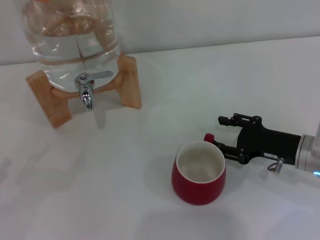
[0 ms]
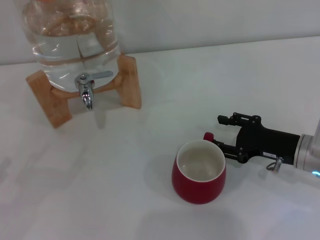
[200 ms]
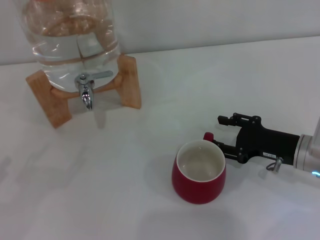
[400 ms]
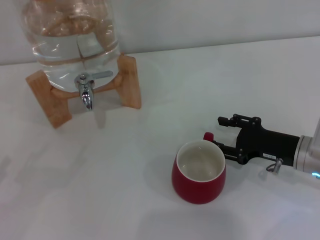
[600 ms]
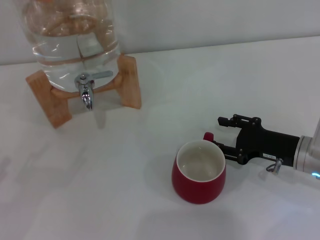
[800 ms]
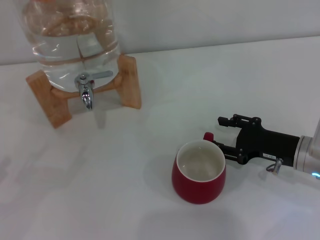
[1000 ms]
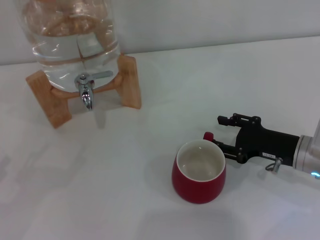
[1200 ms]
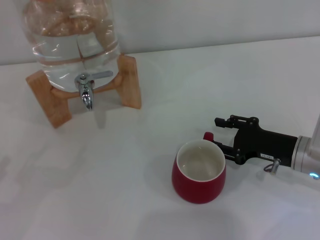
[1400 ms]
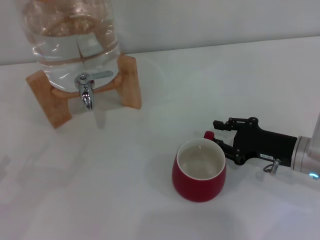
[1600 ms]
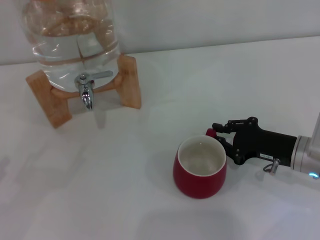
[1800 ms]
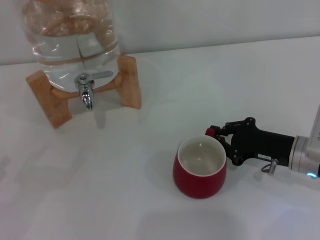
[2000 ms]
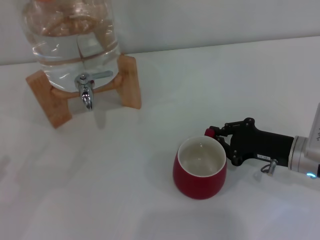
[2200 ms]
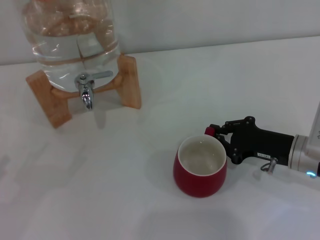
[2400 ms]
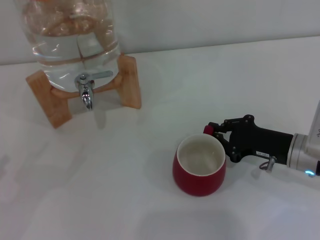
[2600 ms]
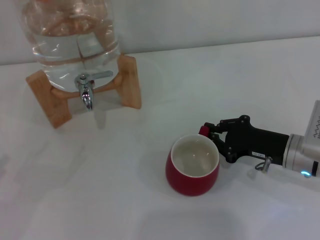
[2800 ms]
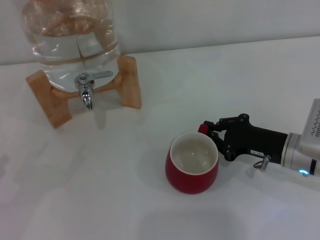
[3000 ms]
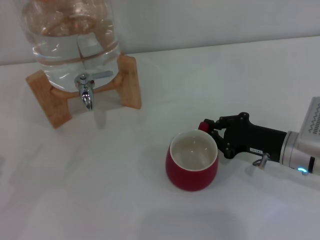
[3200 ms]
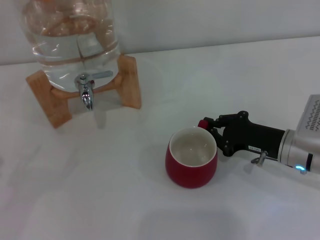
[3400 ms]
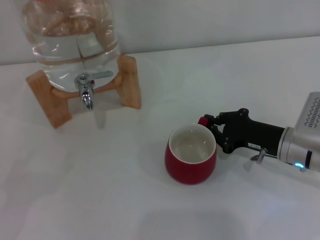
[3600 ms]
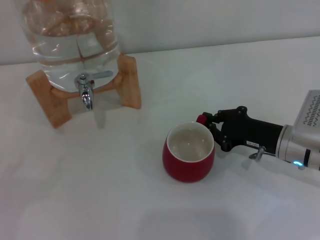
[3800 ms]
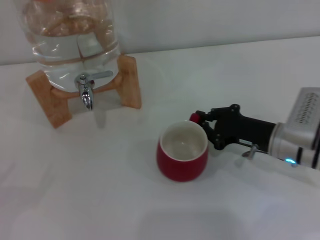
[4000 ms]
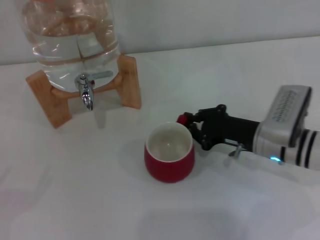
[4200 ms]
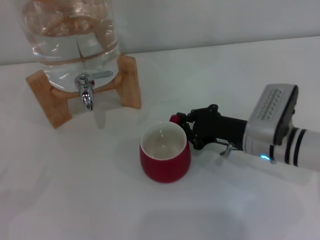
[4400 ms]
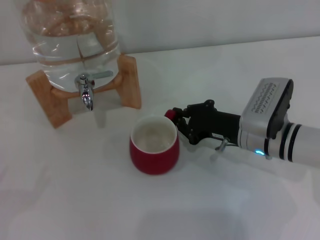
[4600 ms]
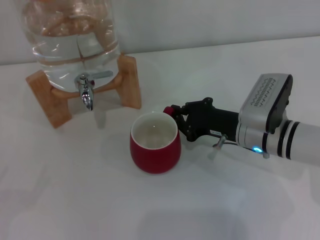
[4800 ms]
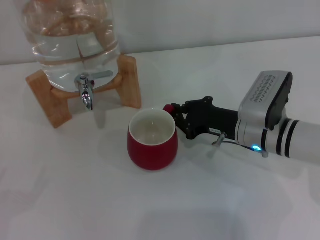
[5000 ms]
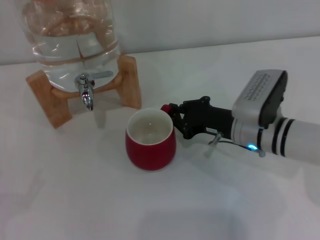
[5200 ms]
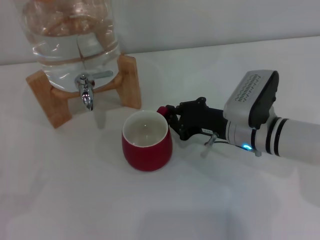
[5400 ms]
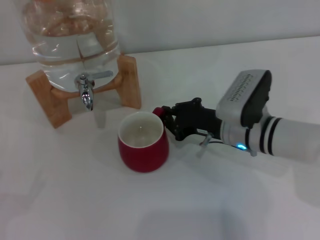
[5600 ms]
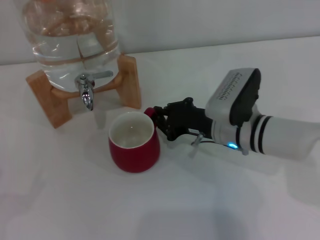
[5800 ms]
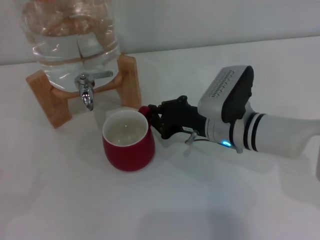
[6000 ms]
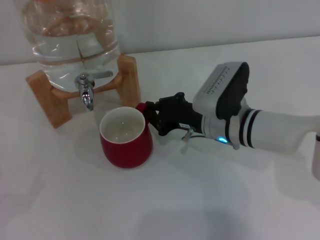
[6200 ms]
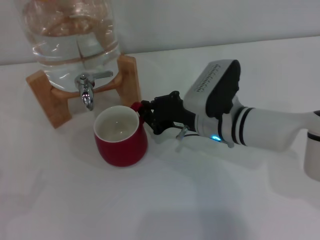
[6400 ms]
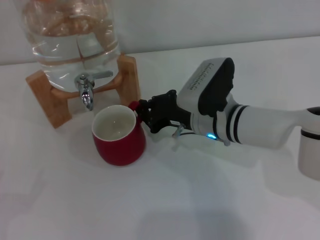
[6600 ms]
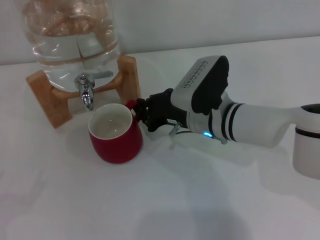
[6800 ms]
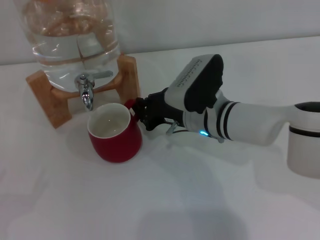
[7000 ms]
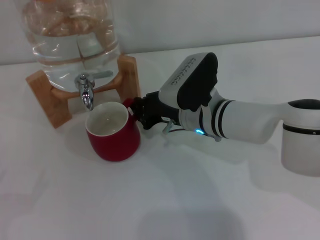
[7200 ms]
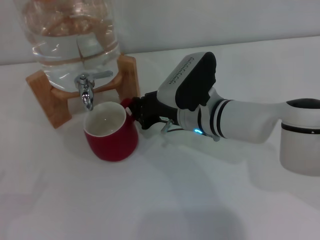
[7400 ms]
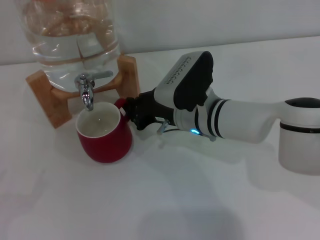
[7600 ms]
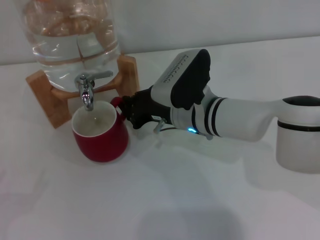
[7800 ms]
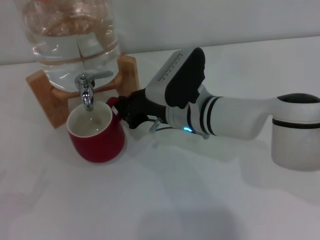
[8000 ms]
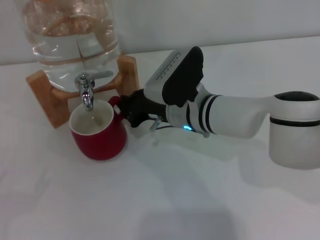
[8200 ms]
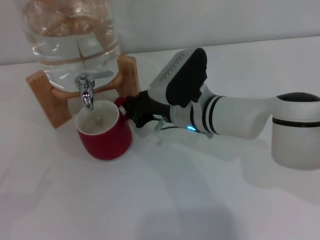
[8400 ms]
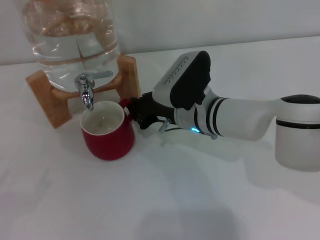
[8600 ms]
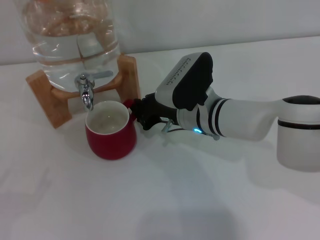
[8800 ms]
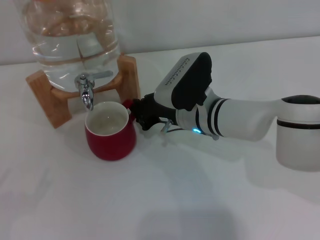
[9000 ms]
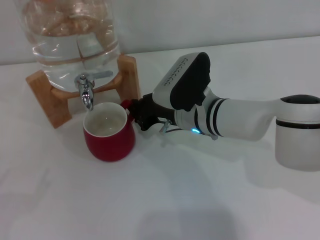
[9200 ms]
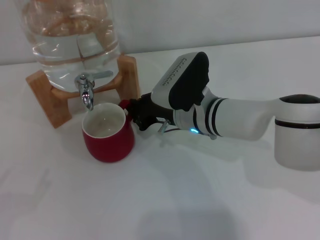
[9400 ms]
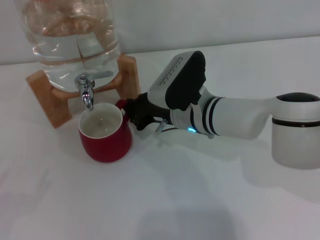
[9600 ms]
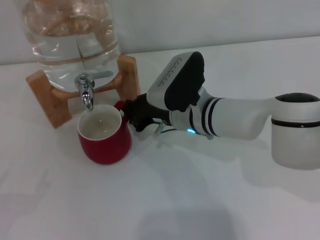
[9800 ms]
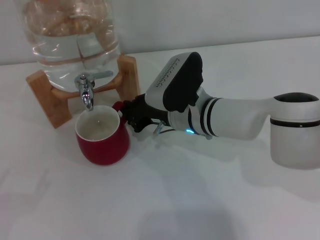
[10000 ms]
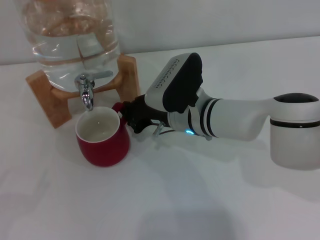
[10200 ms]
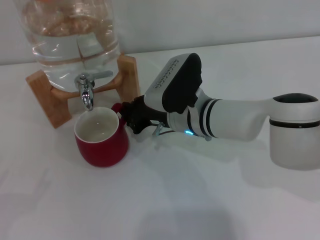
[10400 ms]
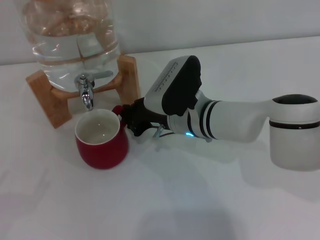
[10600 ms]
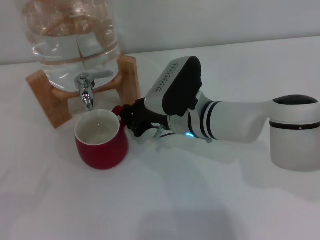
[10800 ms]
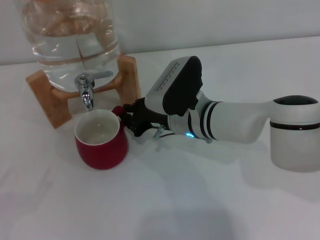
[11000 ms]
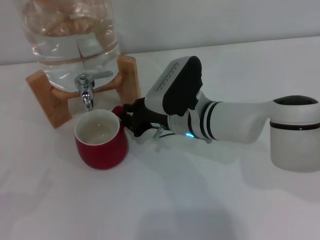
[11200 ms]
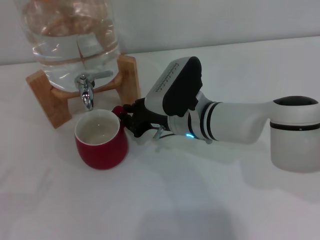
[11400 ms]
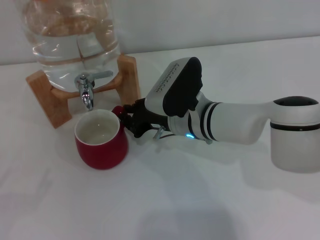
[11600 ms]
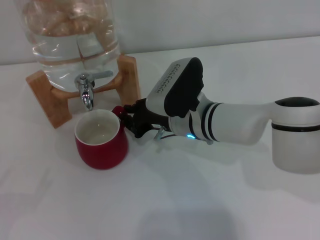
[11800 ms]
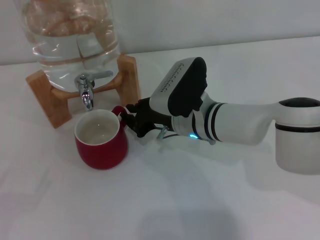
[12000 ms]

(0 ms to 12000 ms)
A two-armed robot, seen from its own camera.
Task of the whole recording: the right gripper pick up the red cup and place it horizontally under the faucet, the left gripper turn on the faucet to fill the cup, and then turn off the faucet.
0 ms - 1600 ms: Both grippers stay put.
1600 ms - 3000 ms: The right gripper closes up.
3000 ms - 4400 ms: The right gripper moves to the left, approximately 5 cm.
4400 ms - 6000 ms: The right gripper shifts approximately 5 cm to the left.
6000 ms - 7600 ms: The right gripper moves some 5 cm.
7600 ms - 12000 ms: Neither gripper changes place.

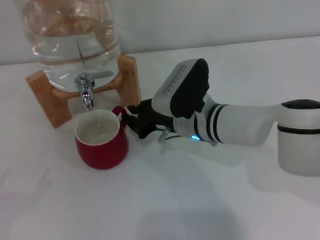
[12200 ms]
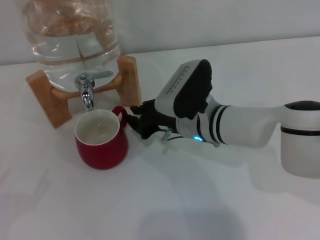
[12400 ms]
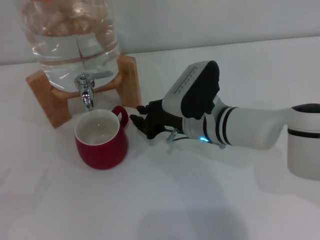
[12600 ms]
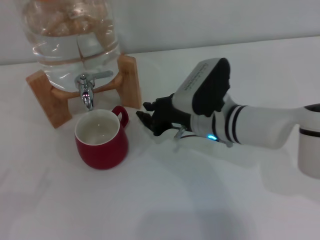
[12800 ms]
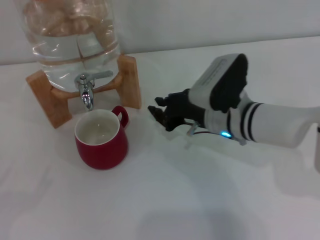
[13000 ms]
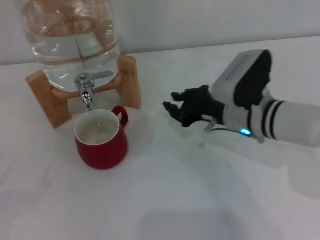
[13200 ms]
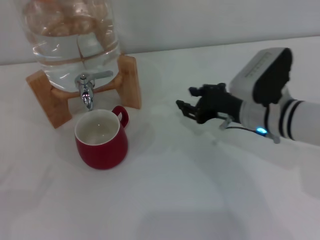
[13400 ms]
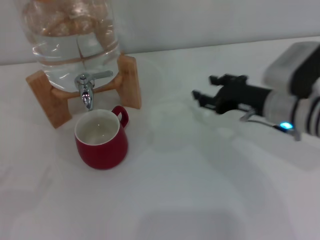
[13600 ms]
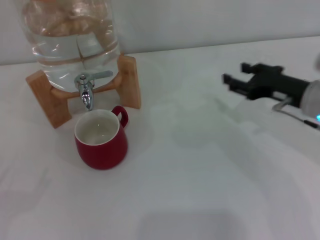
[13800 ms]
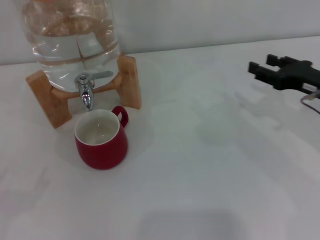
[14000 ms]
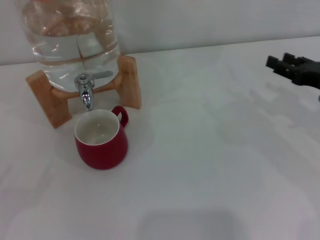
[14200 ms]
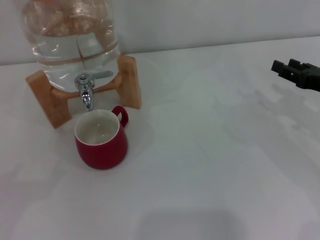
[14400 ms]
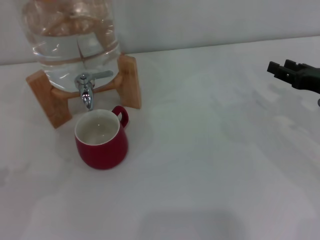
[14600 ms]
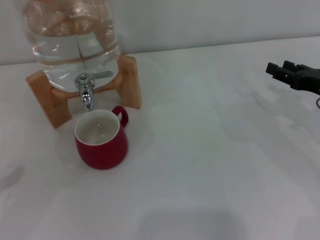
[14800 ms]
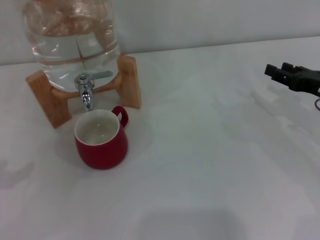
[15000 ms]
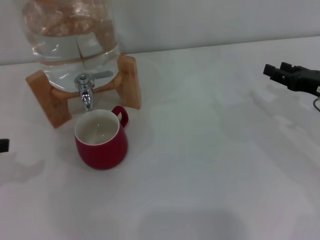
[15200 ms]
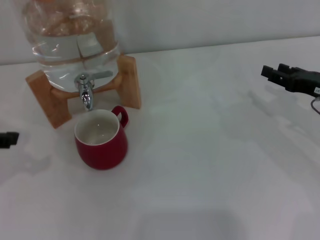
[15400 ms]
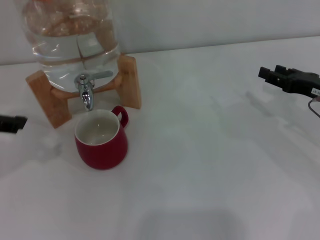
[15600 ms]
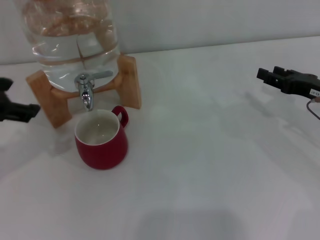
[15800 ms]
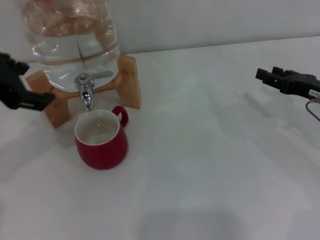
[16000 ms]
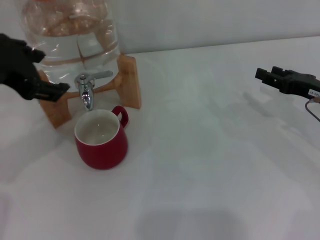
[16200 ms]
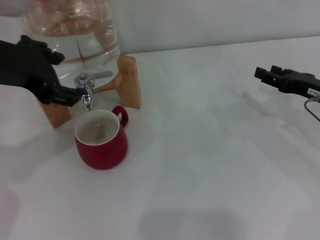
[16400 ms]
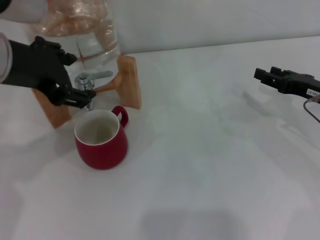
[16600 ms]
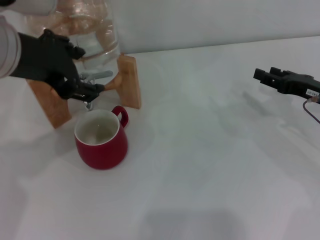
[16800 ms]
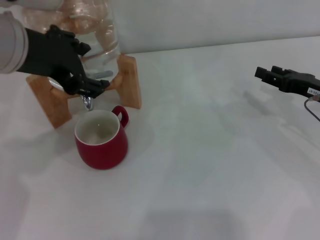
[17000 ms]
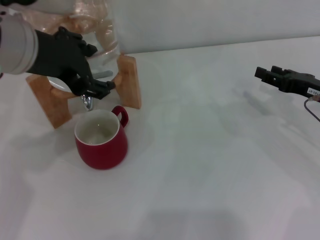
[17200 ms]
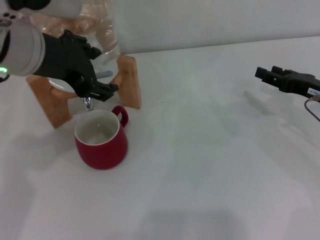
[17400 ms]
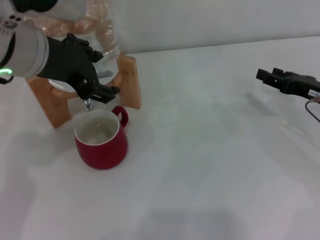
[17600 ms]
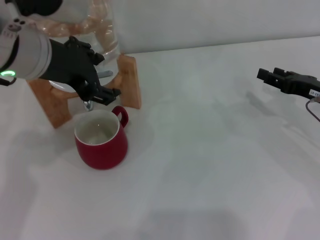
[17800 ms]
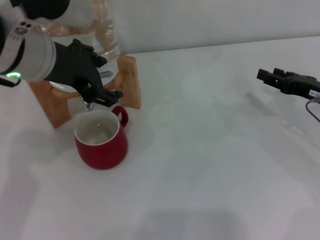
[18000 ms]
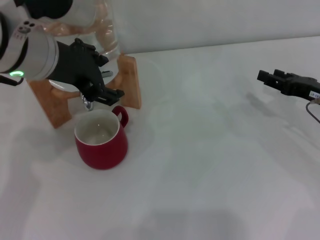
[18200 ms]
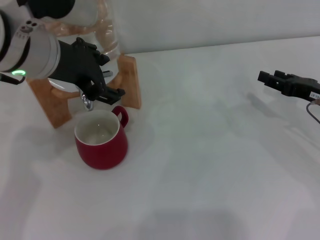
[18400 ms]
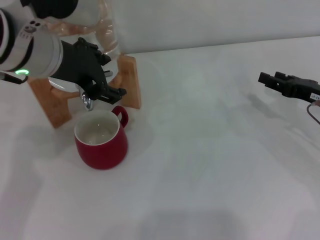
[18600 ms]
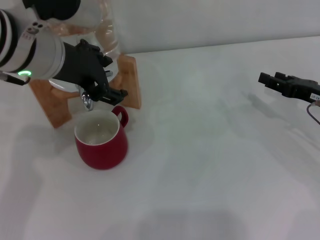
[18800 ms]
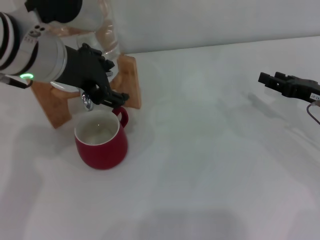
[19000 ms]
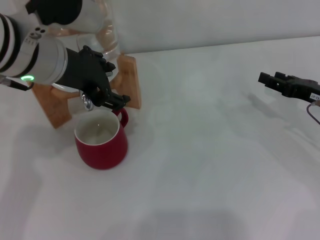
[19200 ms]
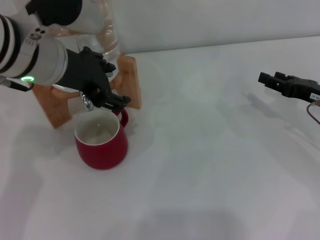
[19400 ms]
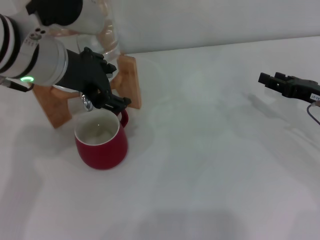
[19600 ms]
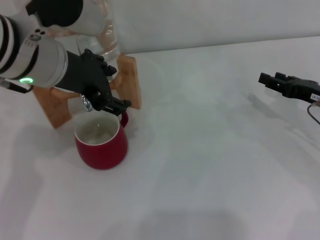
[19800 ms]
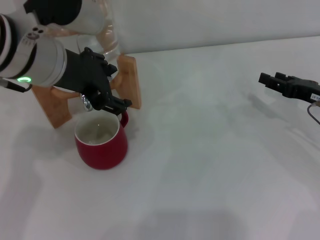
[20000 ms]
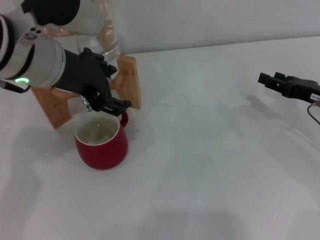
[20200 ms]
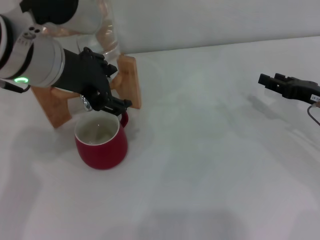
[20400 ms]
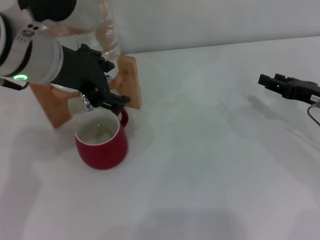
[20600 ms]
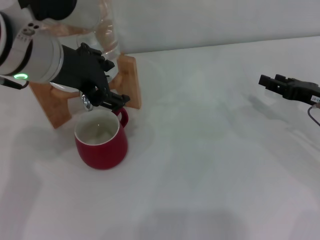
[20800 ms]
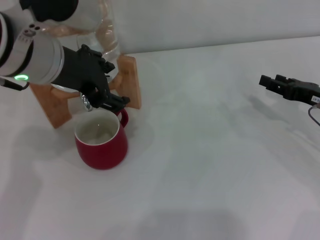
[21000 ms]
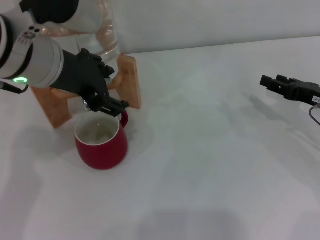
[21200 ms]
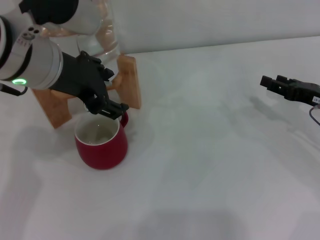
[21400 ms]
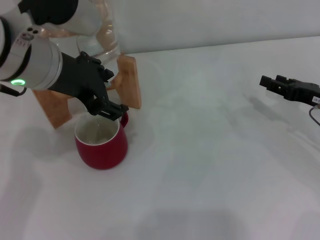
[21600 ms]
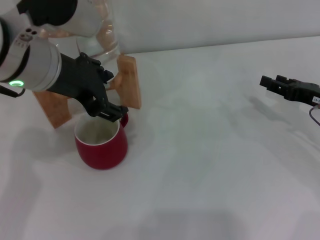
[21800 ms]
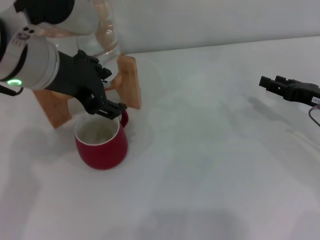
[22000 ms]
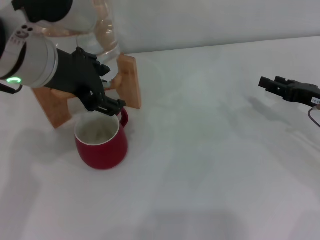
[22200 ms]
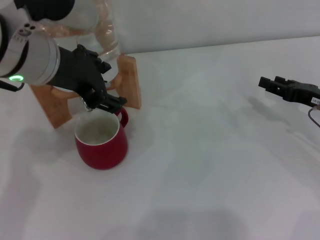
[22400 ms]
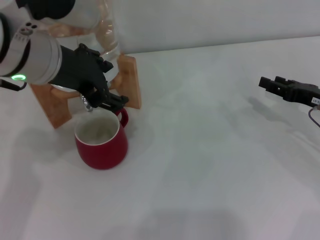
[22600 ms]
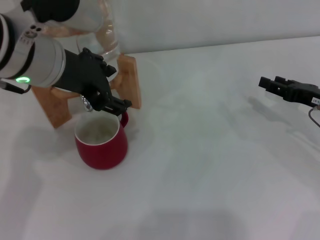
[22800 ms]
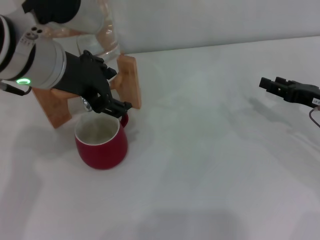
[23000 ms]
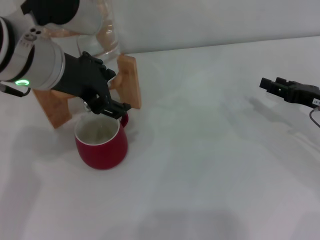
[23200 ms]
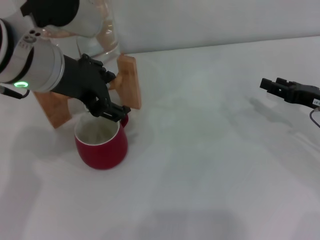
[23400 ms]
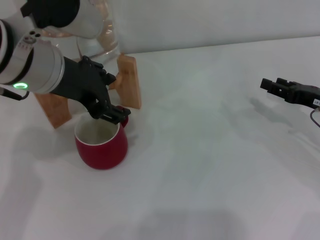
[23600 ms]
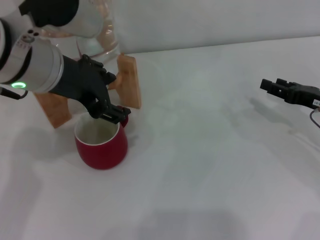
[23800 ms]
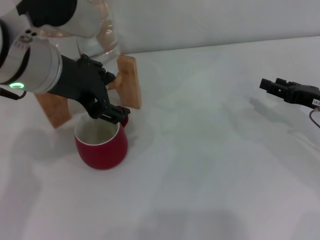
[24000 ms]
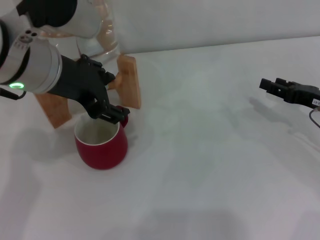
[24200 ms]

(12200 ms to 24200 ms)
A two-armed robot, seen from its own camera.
Task of the whole recording: the right gripper pick up the red cup and place it horizontally under the faucet, the left gripper turn on the faucet to fill the cup, and then turn off the faucet.
12200 ms - 13800 ms: The right gripper shifts about 20 cm to the right, and opens up.
13800 ms - 15200 ms: The right gripper is displaced to the right by roughly 5 cm.
15200 ms - 16600 ms: The left gripper is displaced to the right by some 15 cm.
16600 ms - 18200 ms: The left gripper ends up about 5 cm from where it was.
18200 ms - 19800 ms: There are only small adjustments of the grippers.
19800 ms - 21200 ms: Both grippers stay about where they are.
21200 ms - 24200 ms: Both grippers stay about where they are.
